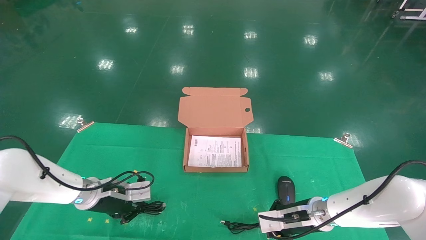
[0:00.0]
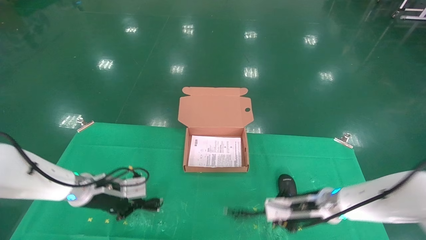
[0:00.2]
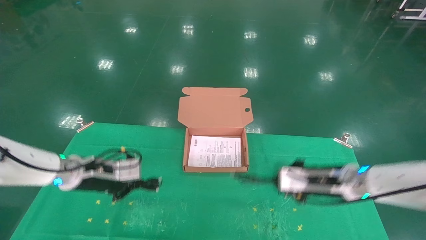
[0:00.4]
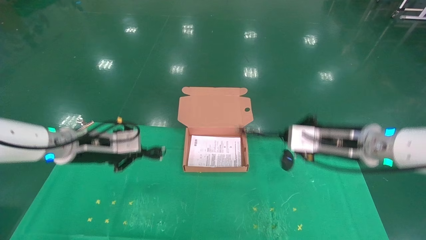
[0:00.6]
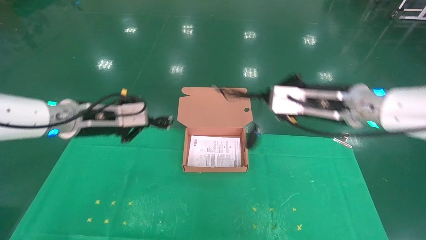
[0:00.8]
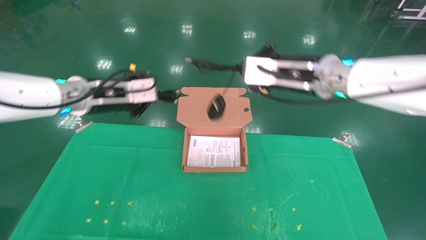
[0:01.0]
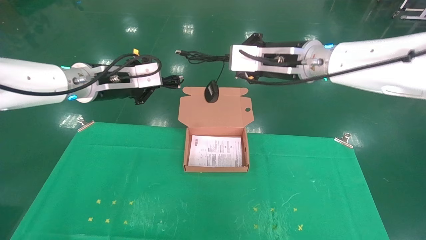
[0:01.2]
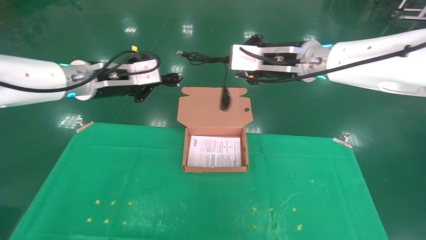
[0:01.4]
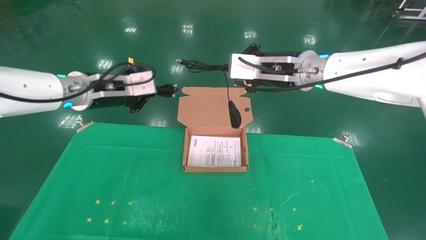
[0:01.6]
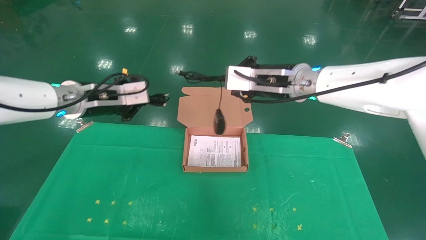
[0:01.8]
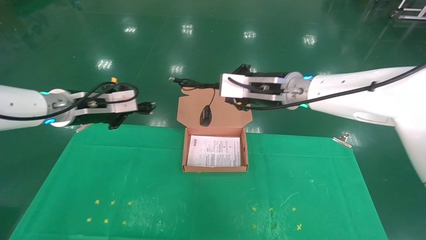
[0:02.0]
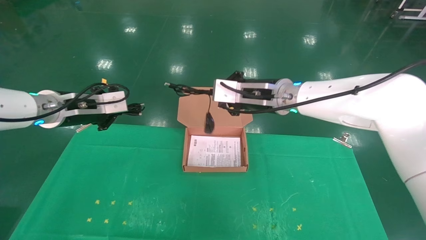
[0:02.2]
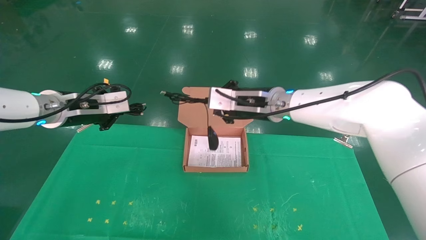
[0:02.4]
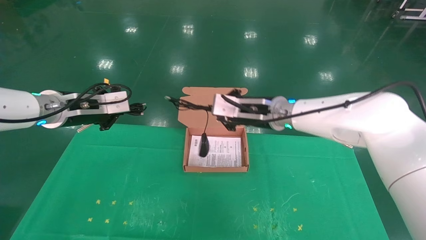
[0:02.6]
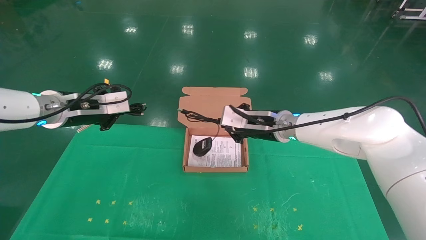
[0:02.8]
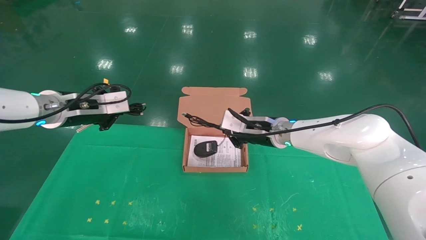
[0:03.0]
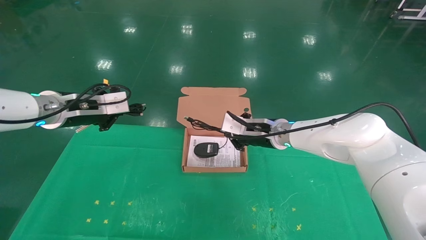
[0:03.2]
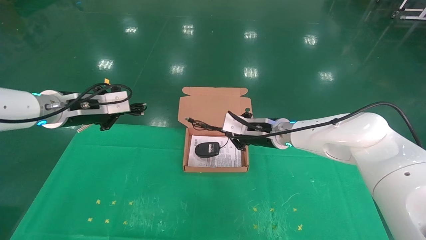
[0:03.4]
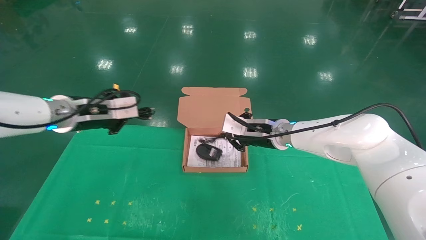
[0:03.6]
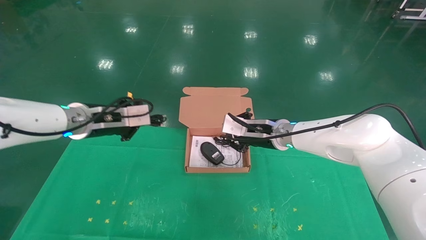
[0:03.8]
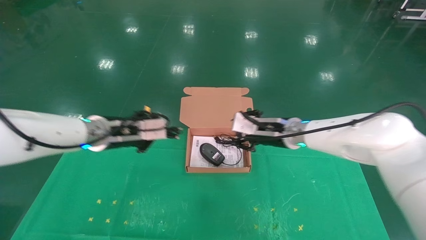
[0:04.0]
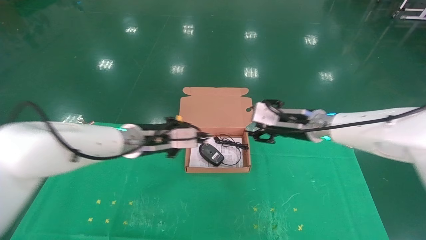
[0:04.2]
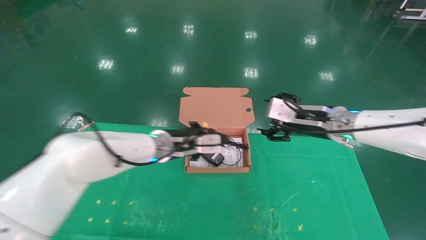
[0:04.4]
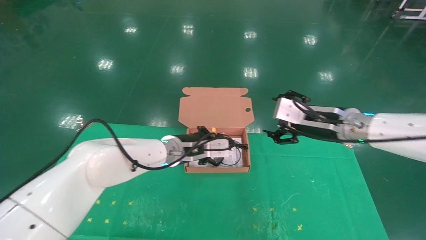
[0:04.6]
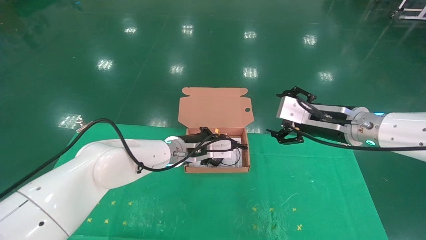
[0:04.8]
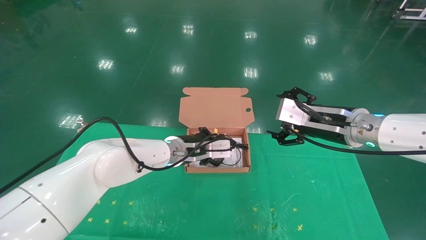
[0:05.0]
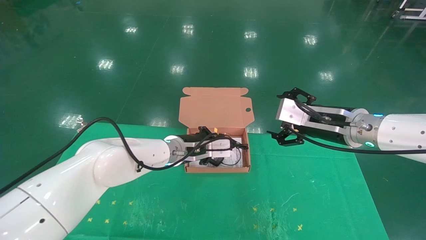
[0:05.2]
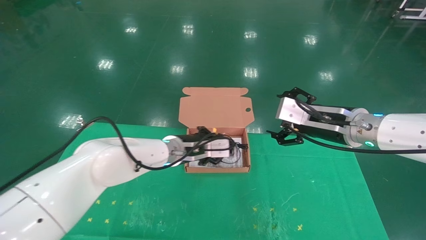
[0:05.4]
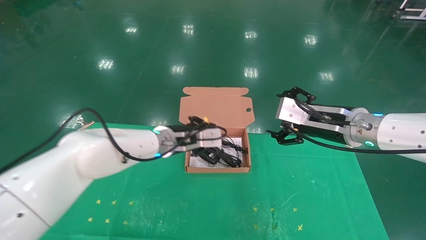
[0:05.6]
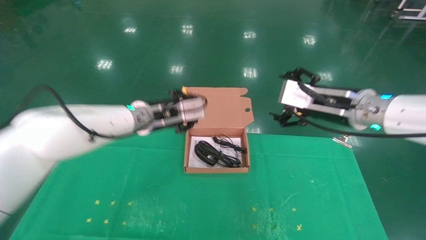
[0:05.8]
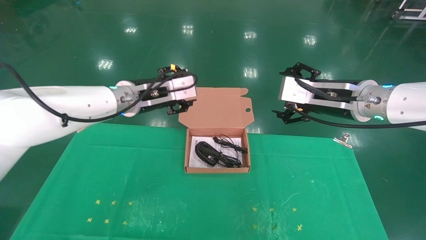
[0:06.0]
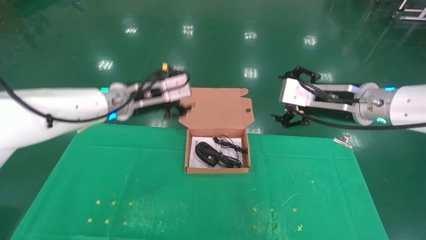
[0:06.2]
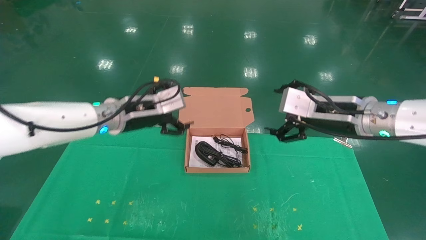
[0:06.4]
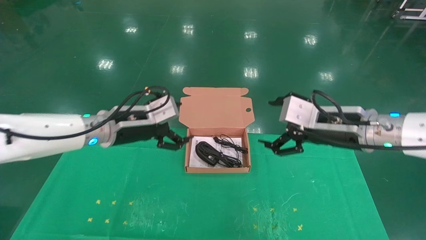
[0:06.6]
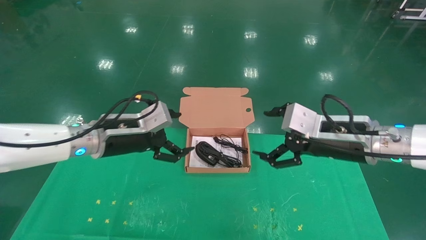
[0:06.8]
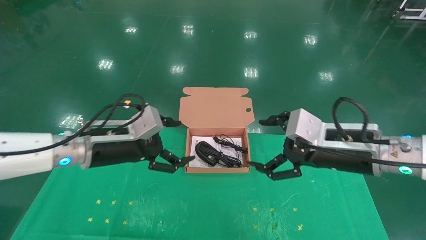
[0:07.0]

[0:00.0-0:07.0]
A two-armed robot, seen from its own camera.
Task of the whole recording: grasp data cable left put into box grasp mouse right put into box.
Step, 0:01.2 to 0:05.6: Place the mouse and power cord into the box.
0:00.0 to 0:01.4: Both grippers travel together upward, approximately 30 cm.
0:01.4 to 0:02.8: The left gripper travels to the left by about 5 cm; the right gripper moves downward and forward, roughly 15 cm.
0:02.8 to 0:04.2: The right gripper shifts about 10 cm to the right, and opens up. The left gripper moves to the right and downward, some 15 cm.
0:04.2 to 0:05.6: The right gripper heads backward, covering roughly 5 cm, and opens.
0:05.6 to 0:07.0: The left gripper is displaced to the left and backward by about 15 cm, and opens up, while the right gripper heads backward, covering approximately 5 cm.
